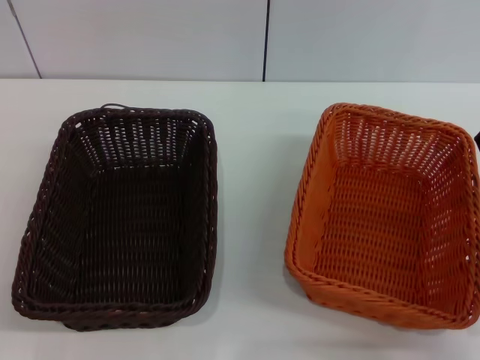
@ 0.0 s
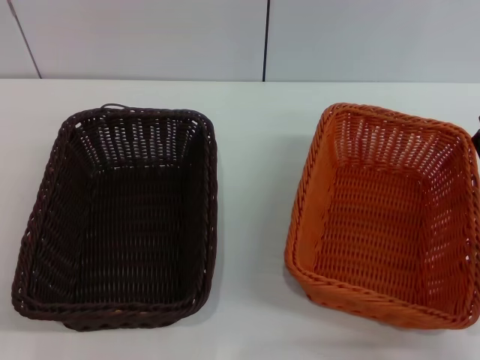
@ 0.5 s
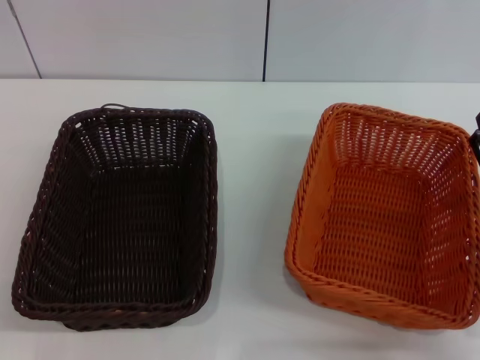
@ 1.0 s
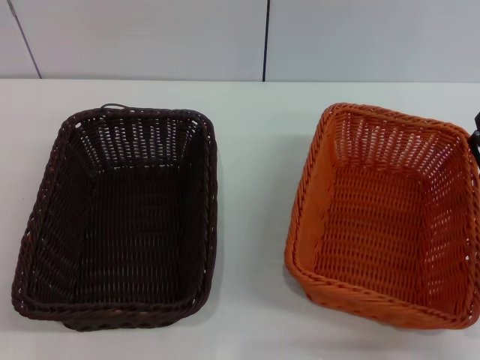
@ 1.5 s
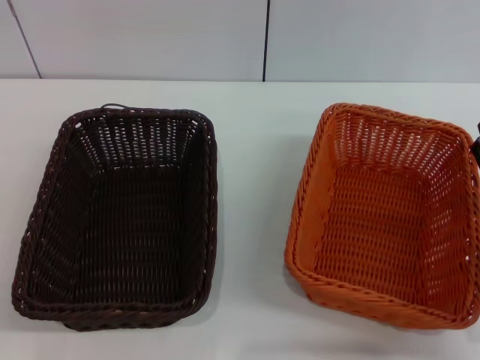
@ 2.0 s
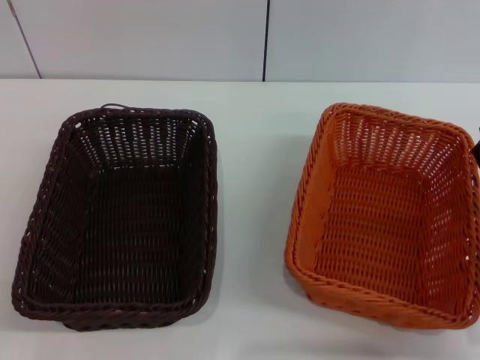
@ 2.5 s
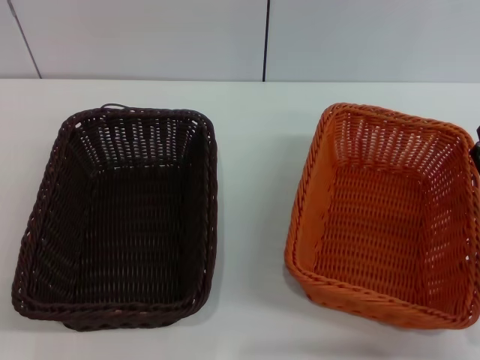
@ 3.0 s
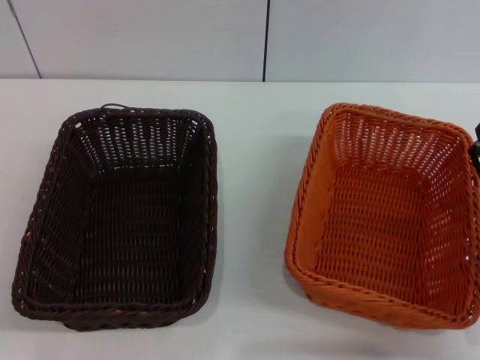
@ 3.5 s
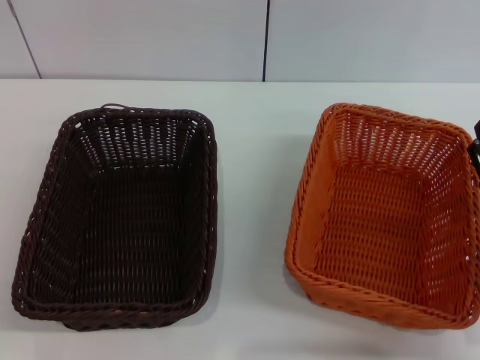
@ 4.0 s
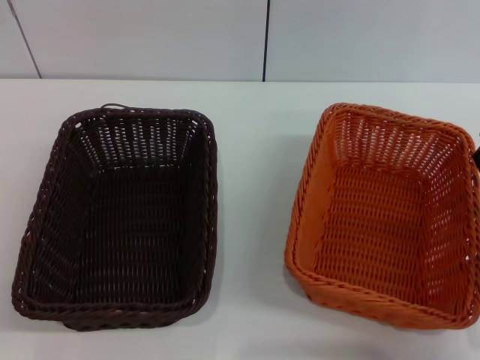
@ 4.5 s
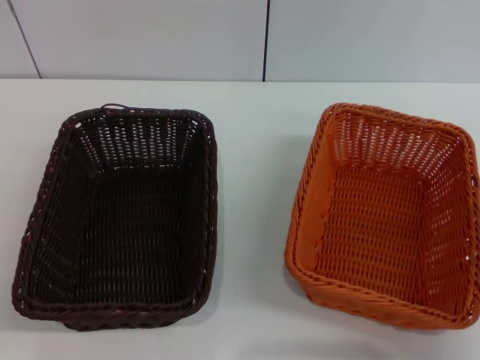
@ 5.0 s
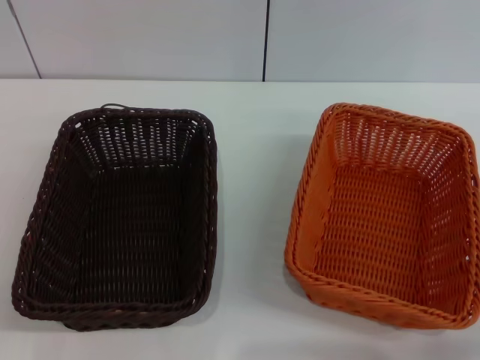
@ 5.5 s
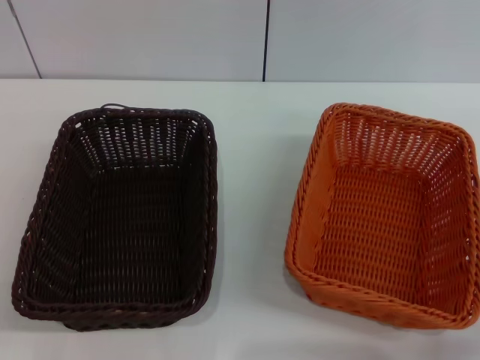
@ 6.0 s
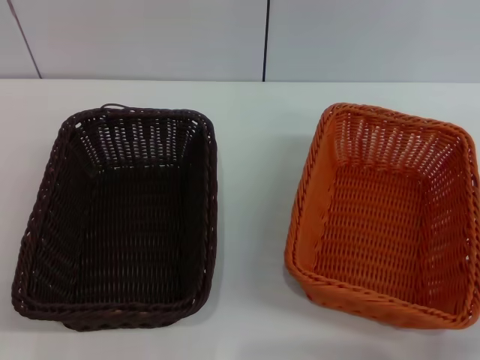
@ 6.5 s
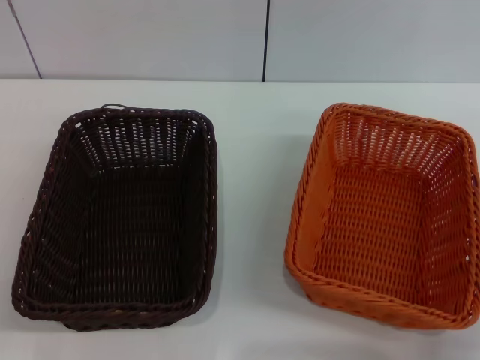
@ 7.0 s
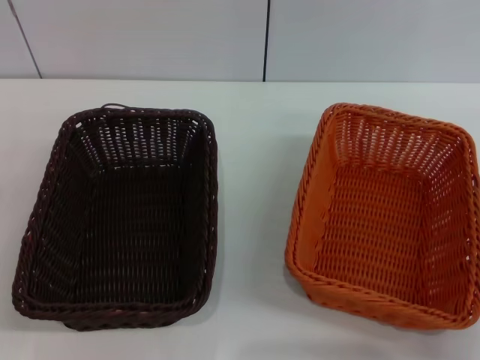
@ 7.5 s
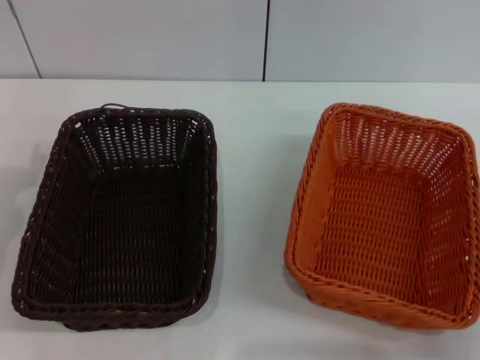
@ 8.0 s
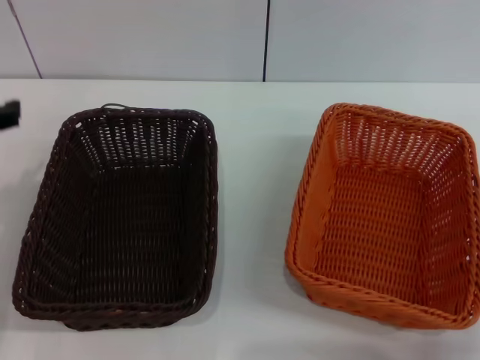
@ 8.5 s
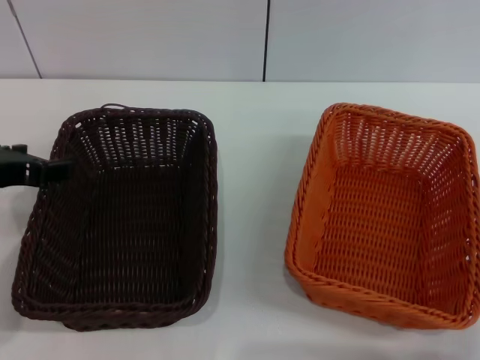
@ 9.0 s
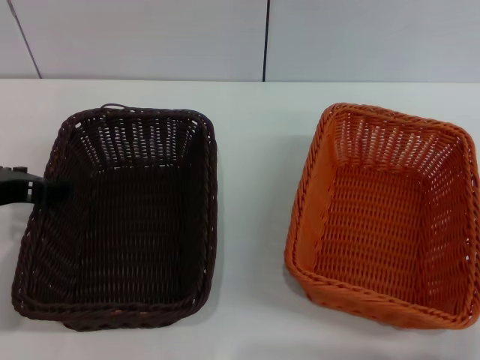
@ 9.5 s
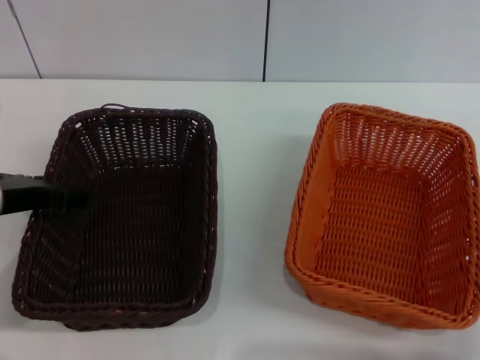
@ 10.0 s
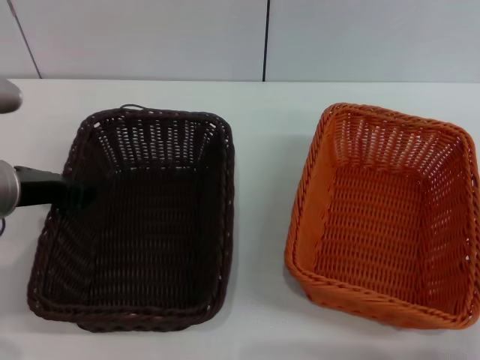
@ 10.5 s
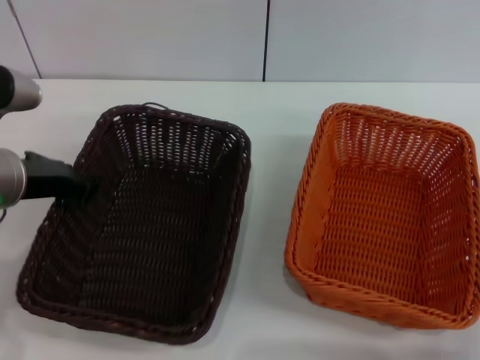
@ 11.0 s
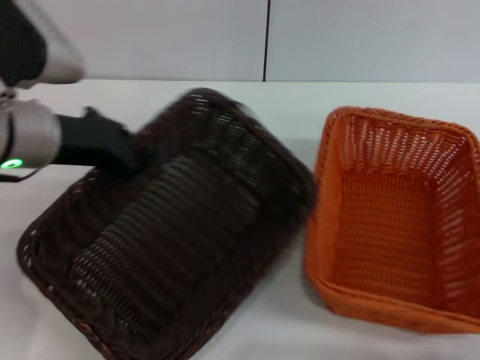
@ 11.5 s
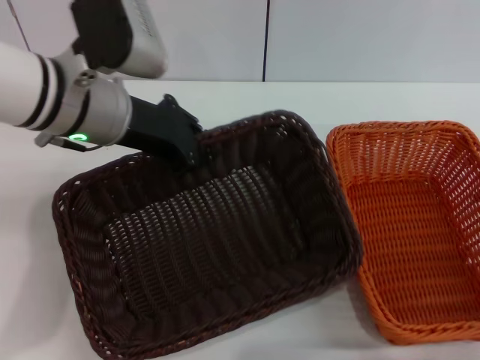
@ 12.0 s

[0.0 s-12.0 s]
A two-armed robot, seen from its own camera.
Step, 0.0 to 11.0 s: Pick up the dark basket with the left gripper.
0.0 to 4.0 s: Both grippers stay put.
4.0 to 6.0 s: The right gripper ends up some 5 cm from where it was.
8.0 to 10.0 s: The left gripper is displaced to the right by roughly 5 cm.
10.0 to 12.0 s: The left gripper shifts roughly 10 cm to the right, forward and upward, and closes up.

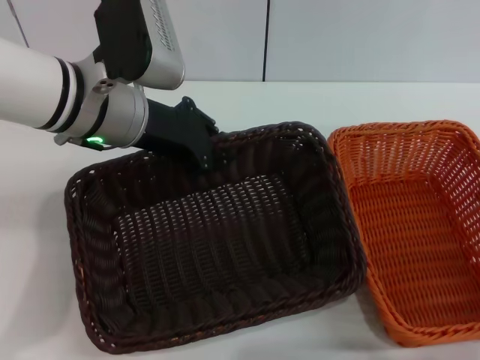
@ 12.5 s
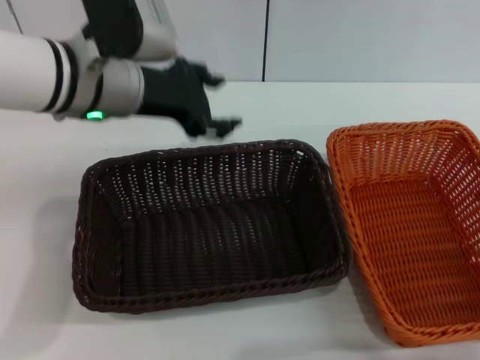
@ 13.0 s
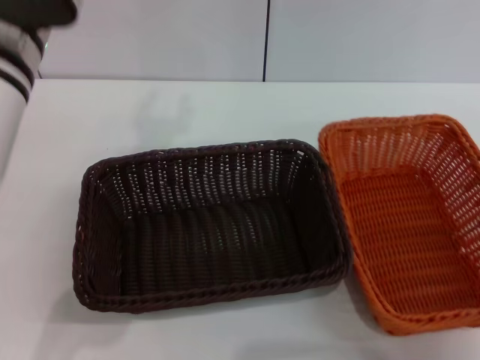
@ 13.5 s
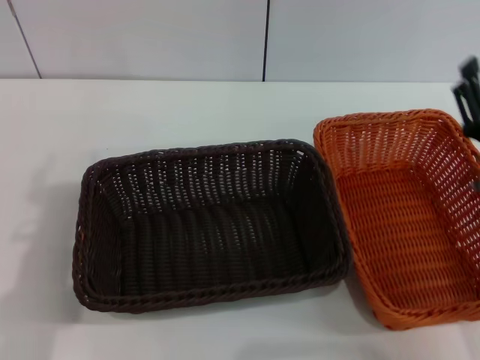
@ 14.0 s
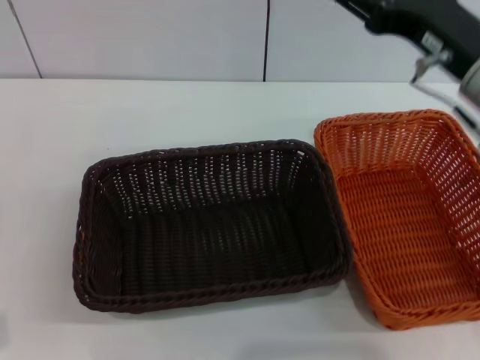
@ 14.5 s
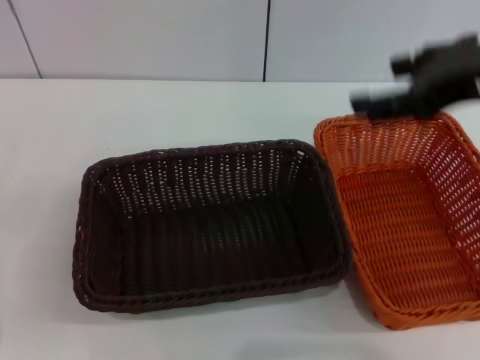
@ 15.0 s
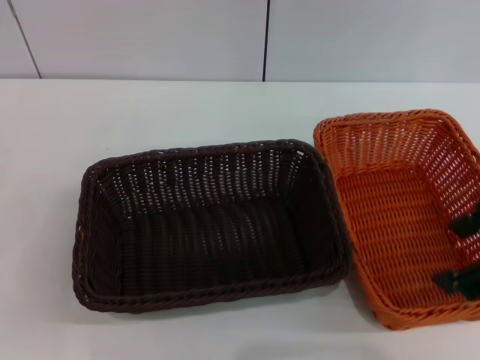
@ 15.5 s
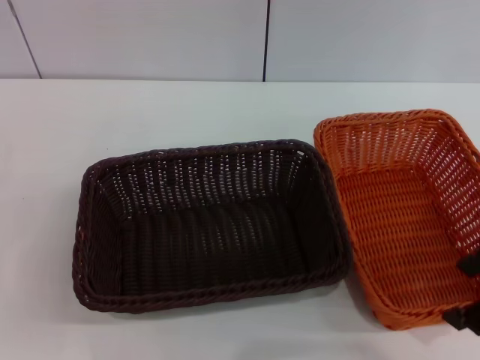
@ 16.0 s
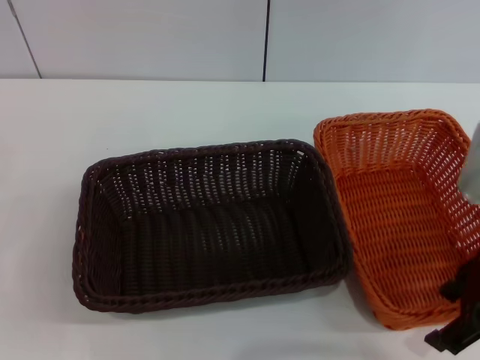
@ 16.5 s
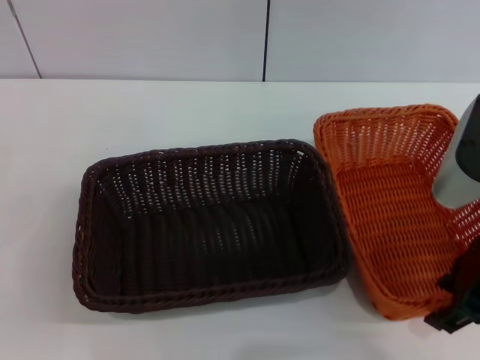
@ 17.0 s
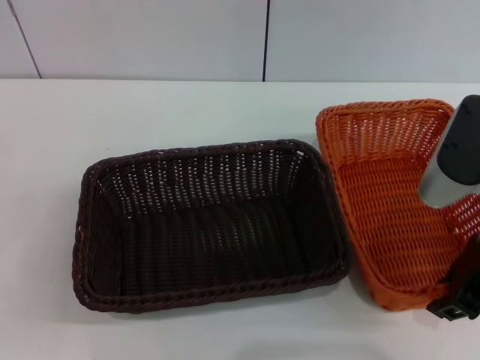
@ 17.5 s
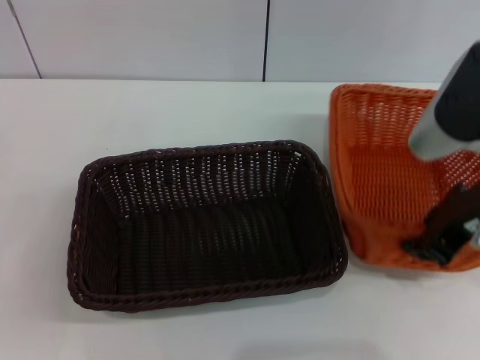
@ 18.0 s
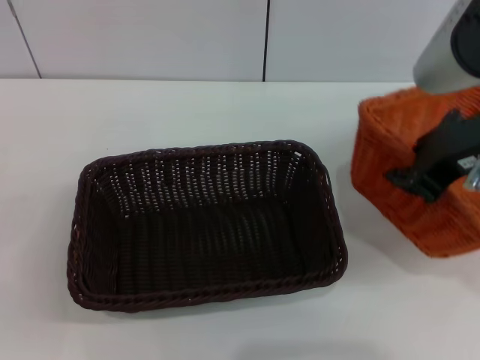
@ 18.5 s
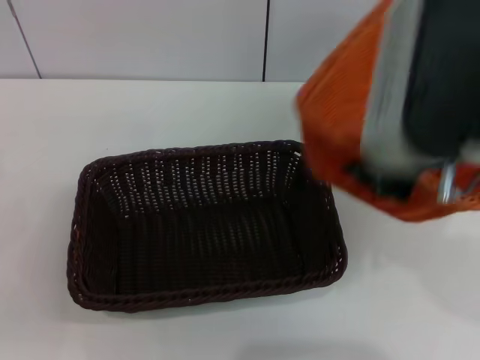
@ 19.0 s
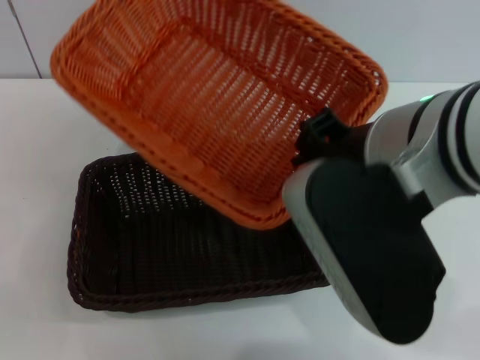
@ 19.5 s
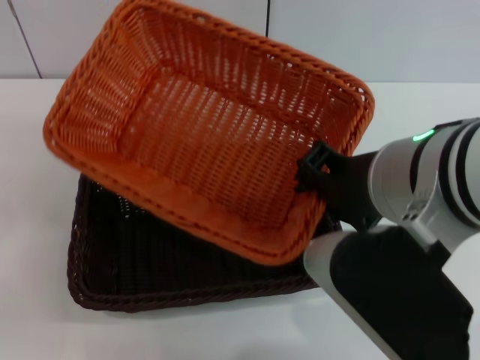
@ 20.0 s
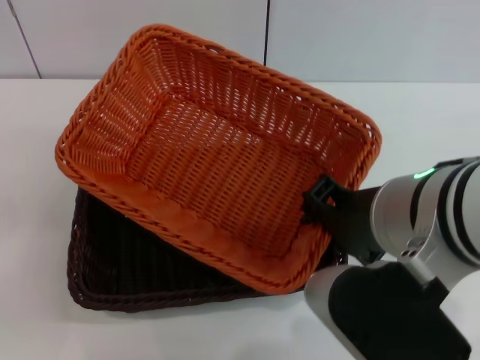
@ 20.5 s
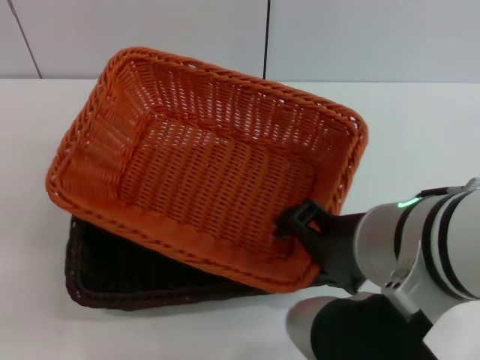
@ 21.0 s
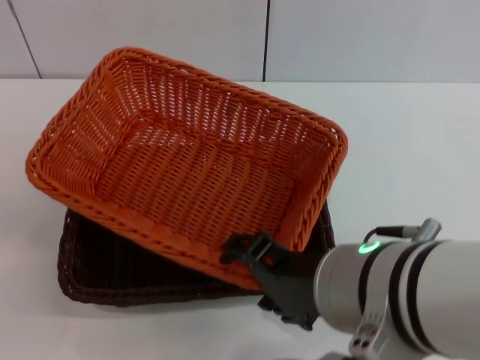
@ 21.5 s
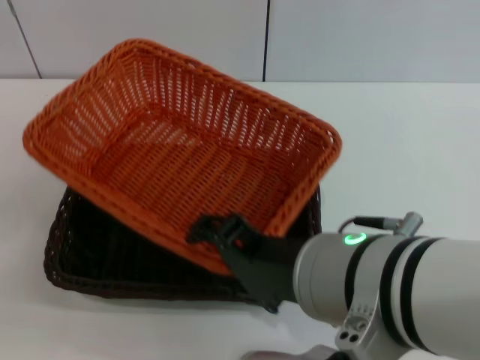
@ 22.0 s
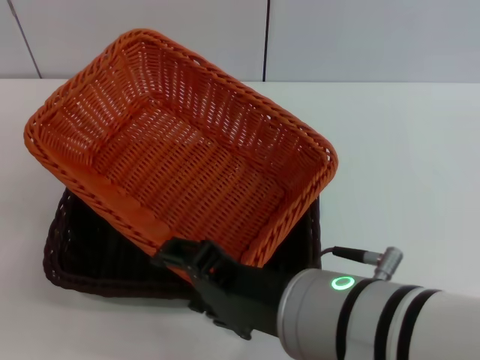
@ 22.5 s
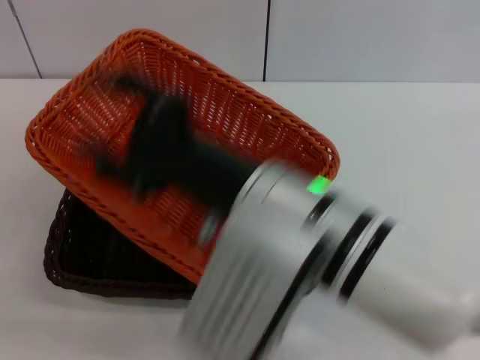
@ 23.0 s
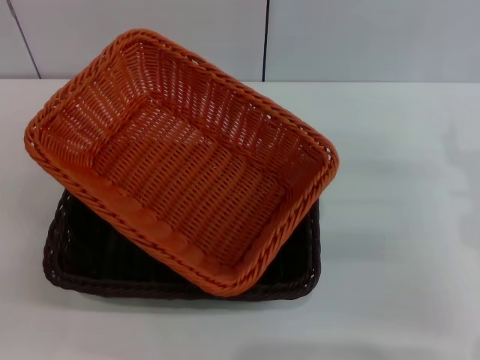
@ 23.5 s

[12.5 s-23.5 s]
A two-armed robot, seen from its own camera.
Step, 13.0 to 18.0 s: Pick up the light basket with the right gripper.
Step, 18.5 to 22.0 s: Place the light basket on the dark basket with the right gripper.
12.5 to 14.5 s: The left gripper heads backward, to the left and downward, covering about 25 cm, and opens its fingers. The right gripper shifts roughly 25 cm upward, forward and to the left.
14.5 to 16.0 s: The right gripper heads to the right and backward, covering roughly 10 cm.
16.0 to 18.0 s: The right gripper changes place by roughly 5 cm, and closes up.
18.0 to 20.0 s: The right gripper travels to the left and backward by some 10 cm.
20.0 to 21.5 s: The right gripper shifts approximately 5 cm backward, and opens.
21.5 to 23.5 s: The right gripper is displaced to the right, forward and downward by about 25 cm.
